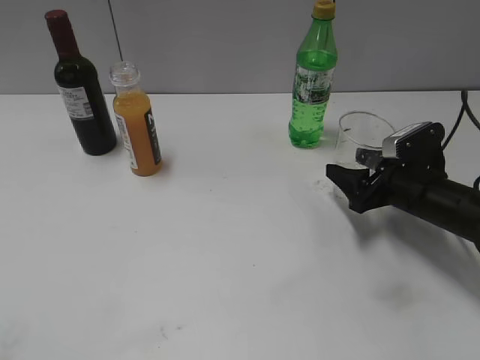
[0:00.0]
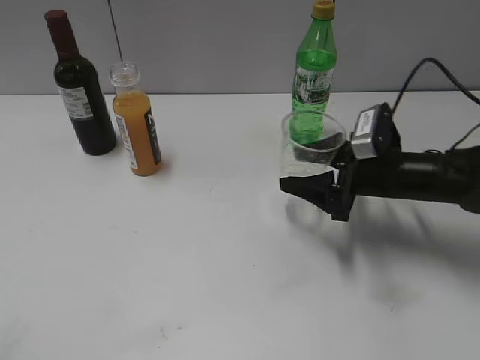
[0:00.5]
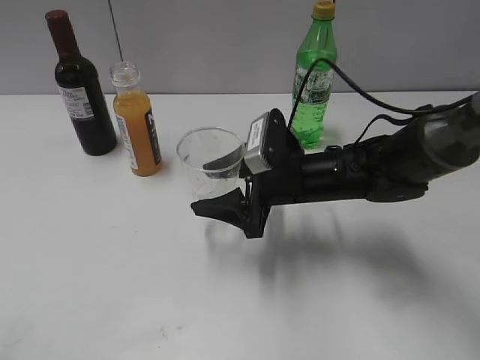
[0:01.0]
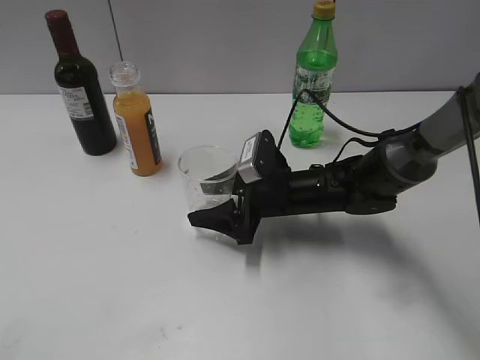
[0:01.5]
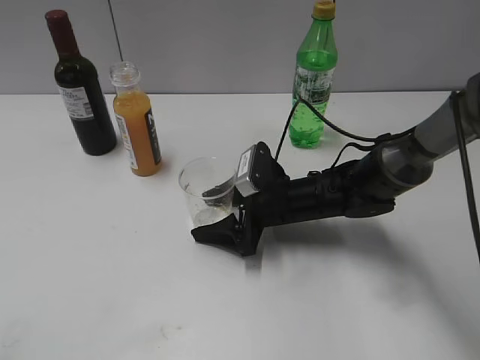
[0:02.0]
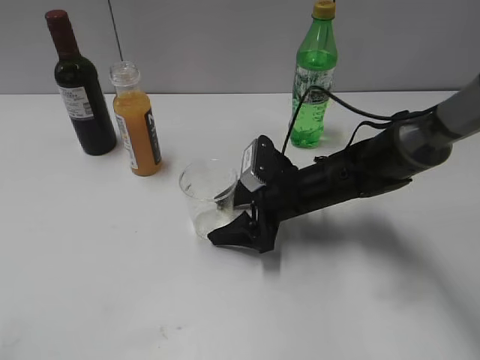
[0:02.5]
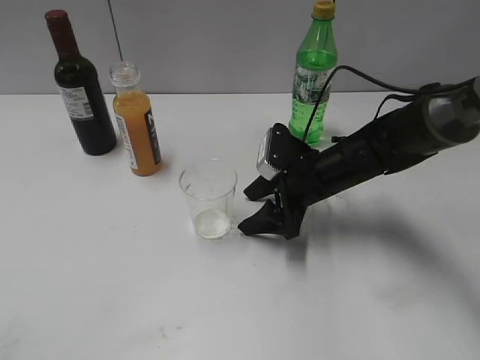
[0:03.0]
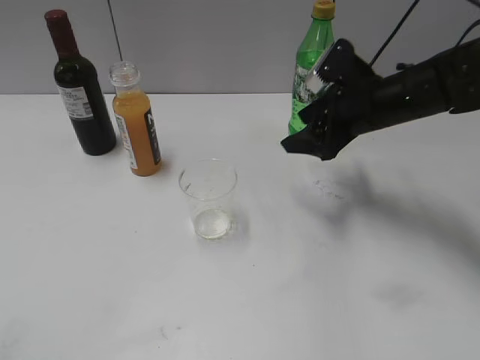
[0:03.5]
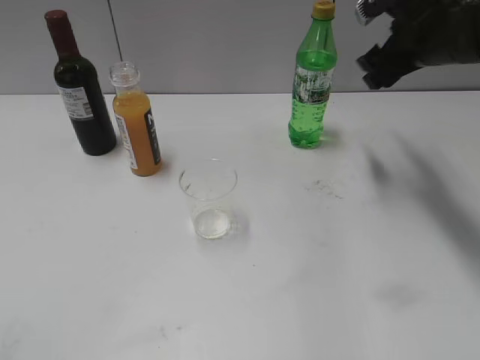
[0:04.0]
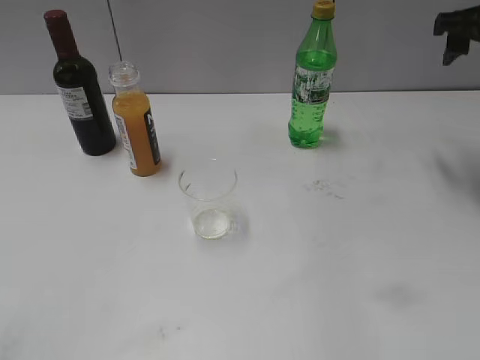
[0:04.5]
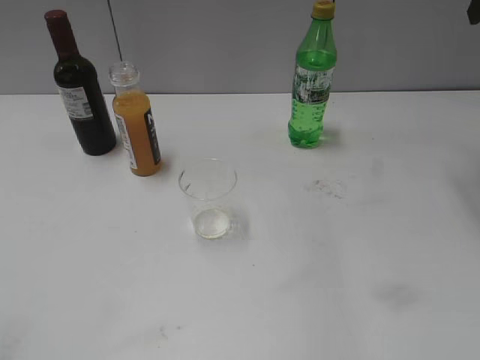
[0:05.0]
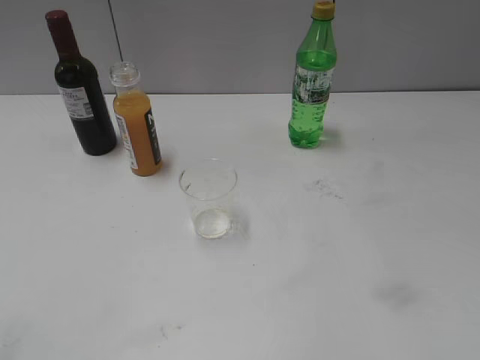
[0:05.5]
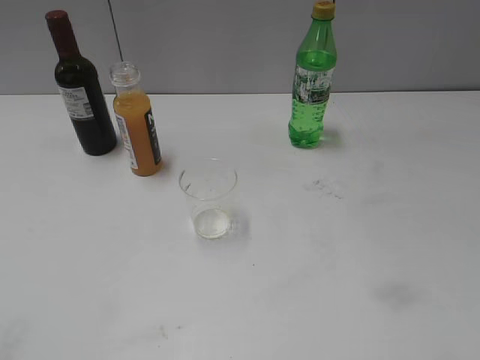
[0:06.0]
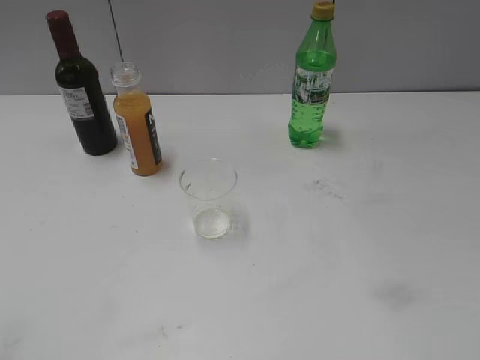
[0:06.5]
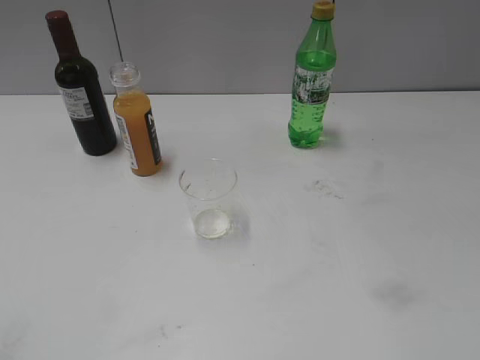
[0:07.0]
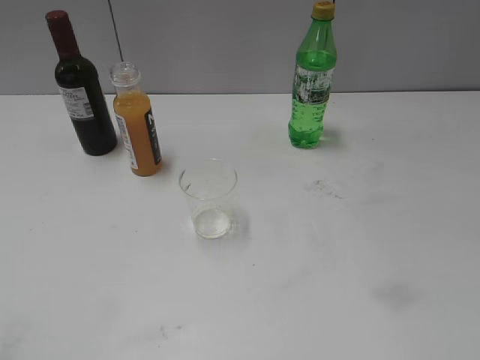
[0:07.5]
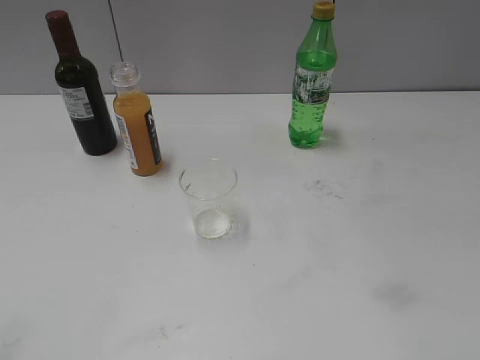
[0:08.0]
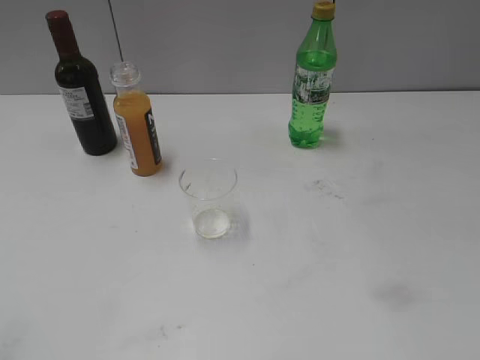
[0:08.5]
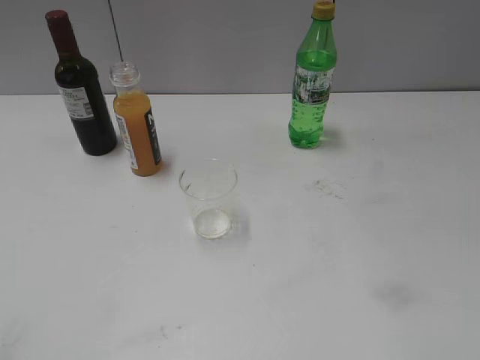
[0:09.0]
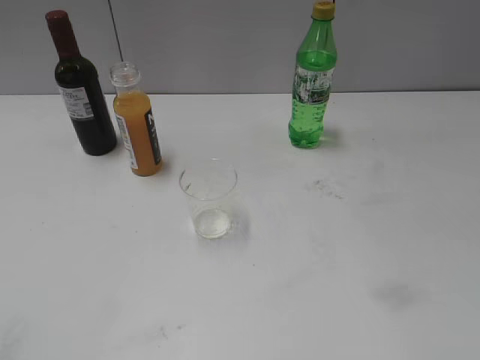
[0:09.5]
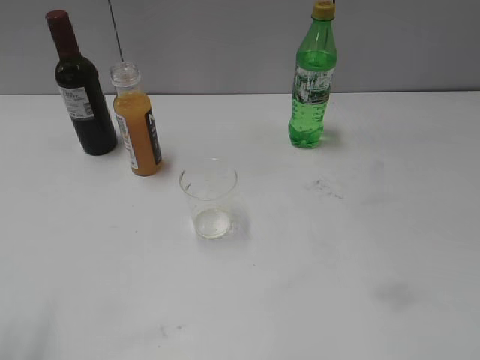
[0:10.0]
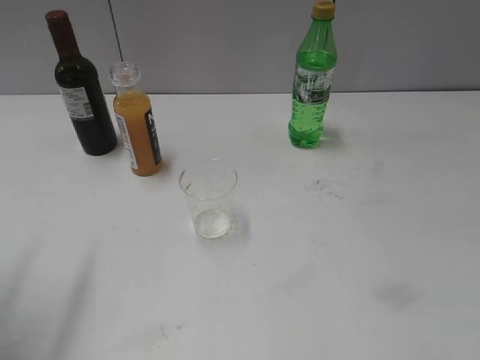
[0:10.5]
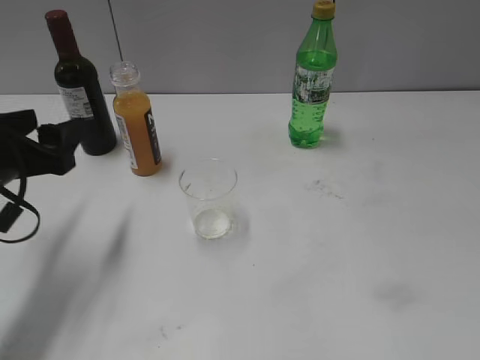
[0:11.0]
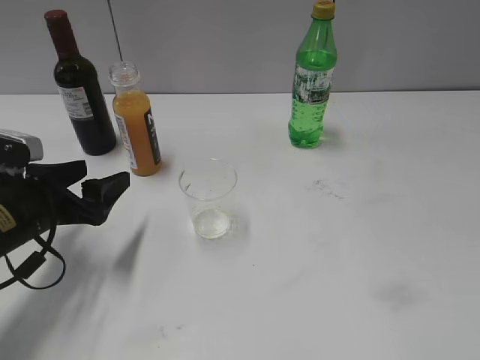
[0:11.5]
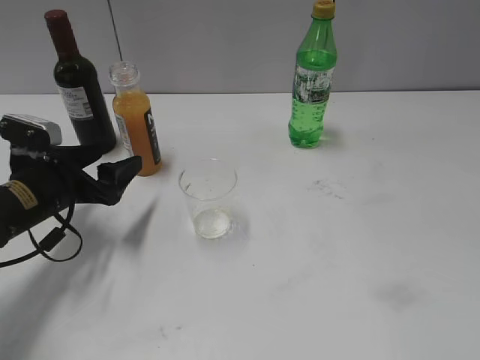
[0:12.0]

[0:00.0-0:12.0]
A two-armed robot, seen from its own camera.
Step, 0:00.0 to 0:02.5: Place the transparent cup on the table with right gripper.
0:00.0 to 0:02.0: The right gripper is displaced to the left by some 15 cm.
0:02.0 to 0:04.0: The right gripper heads upward and to the right, covering roughly 25 cm.
0:04.0 to 0:06.0: The right gripper goes about 30 cm backward.
0:10.0 to 0:12.0: The left gripper is displaced forward and downward by some 30 cm.

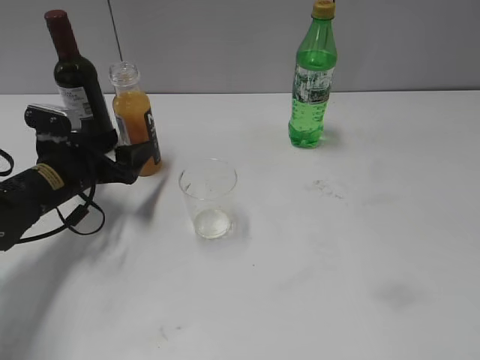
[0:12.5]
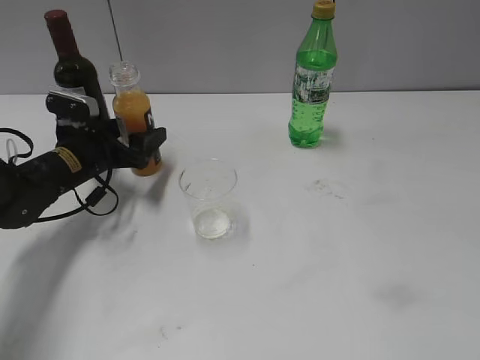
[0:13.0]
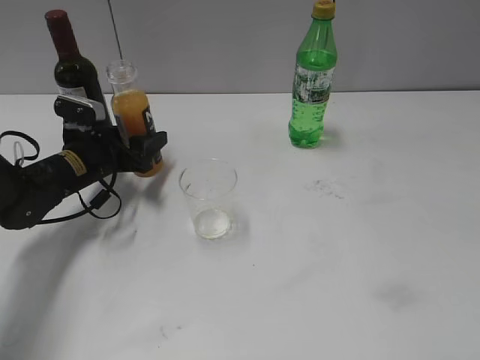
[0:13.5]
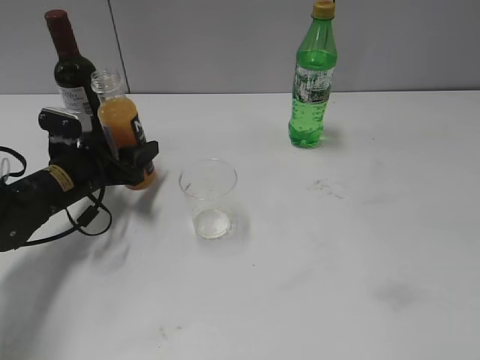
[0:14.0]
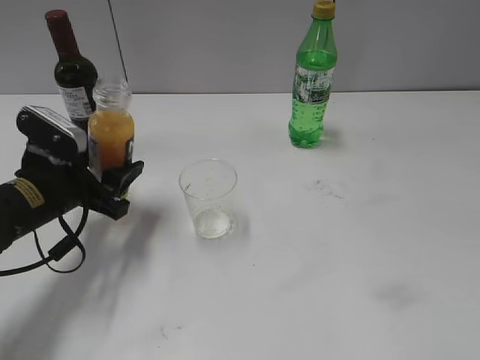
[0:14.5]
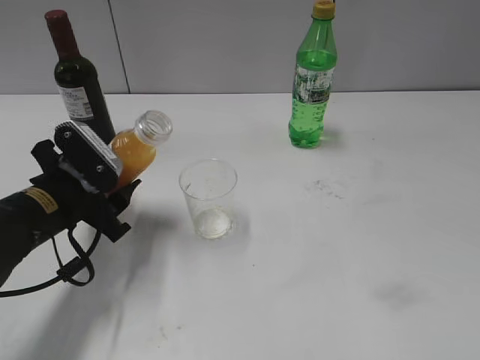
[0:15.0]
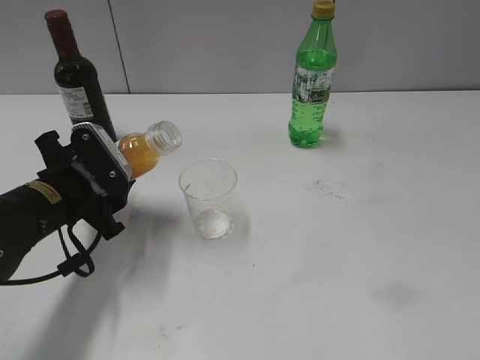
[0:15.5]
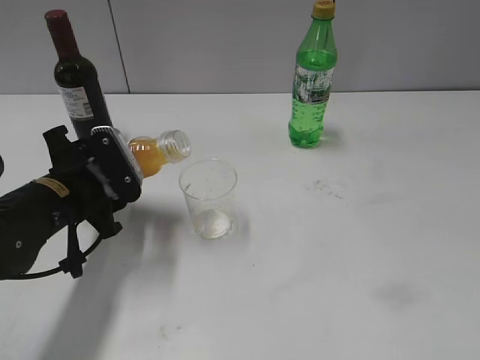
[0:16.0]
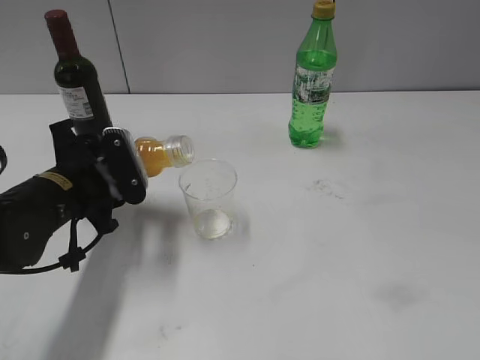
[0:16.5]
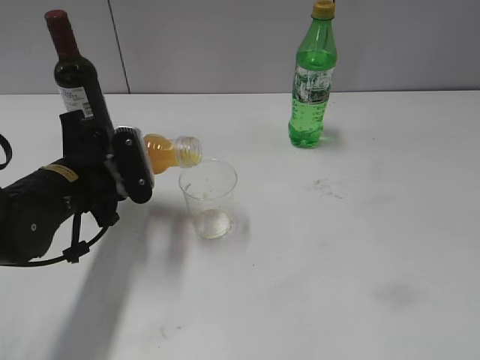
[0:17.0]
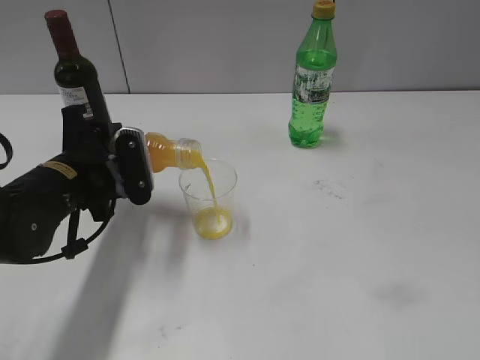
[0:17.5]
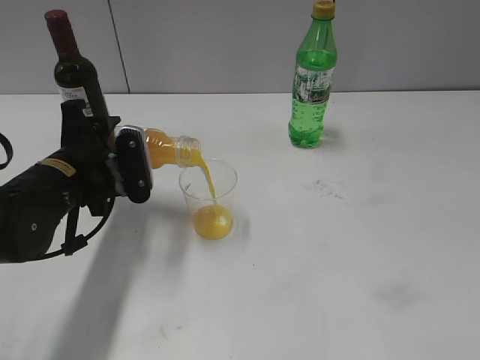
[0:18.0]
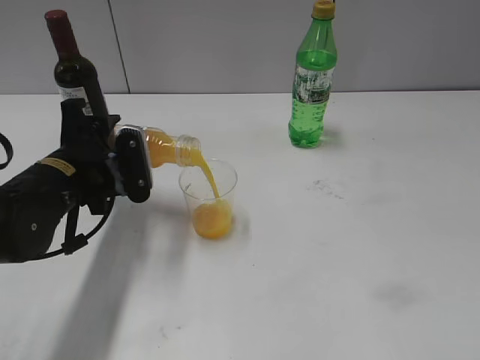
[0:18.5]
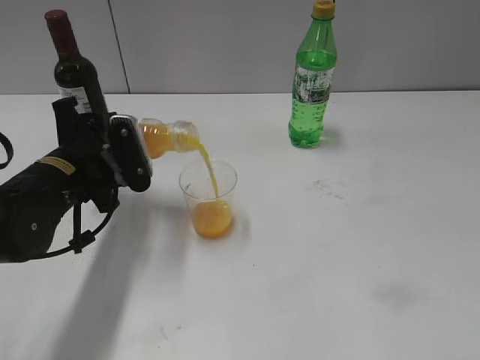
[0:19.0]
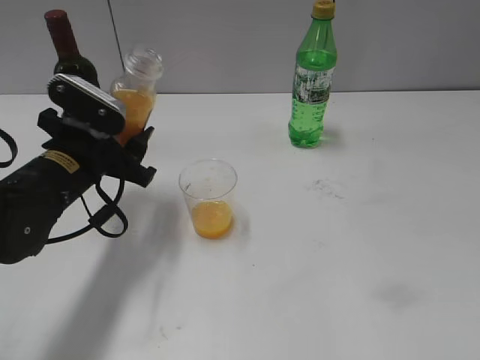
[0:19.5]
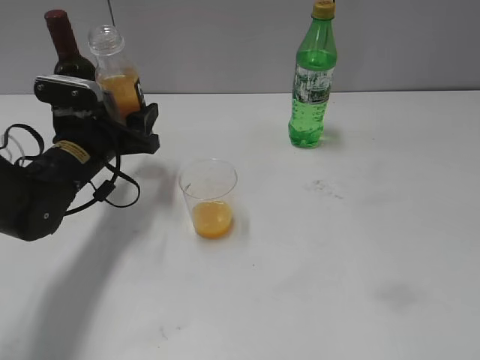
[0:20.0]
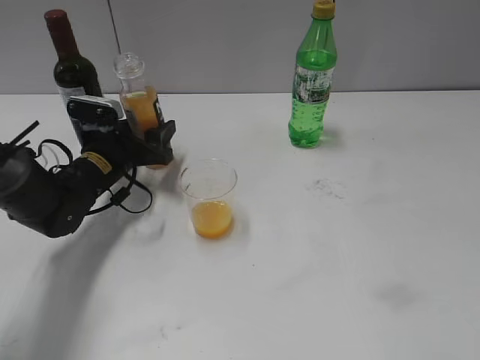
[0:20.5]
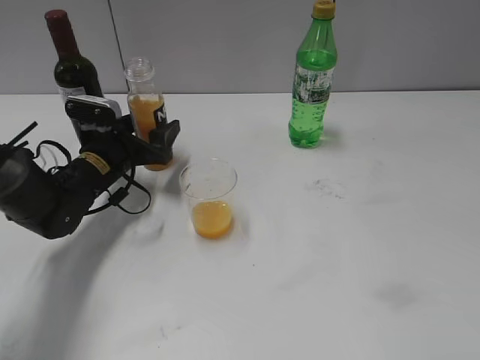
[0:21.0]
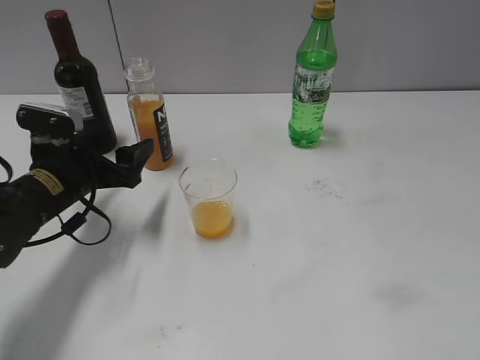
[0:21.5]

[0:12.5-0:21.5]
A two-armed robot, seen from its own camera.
Step, 0:14.0 to 0:19.0: Pour the orange juice from bottle to cup with left gripper.
Step, 0:19.5 to 0:21.0: Place the orange juice bottle on the table with left gripper.
0:12.5 to 0:14.5: The left gripper travels backward by some 5 cm, and closes its fingers.
0:19.5 to 0:21.5: The left gripper reaches some 10 cm forward, then returns, and opens its fingers.

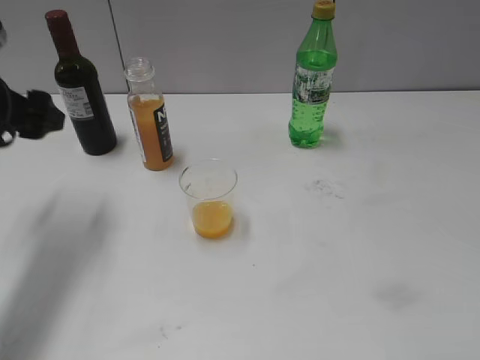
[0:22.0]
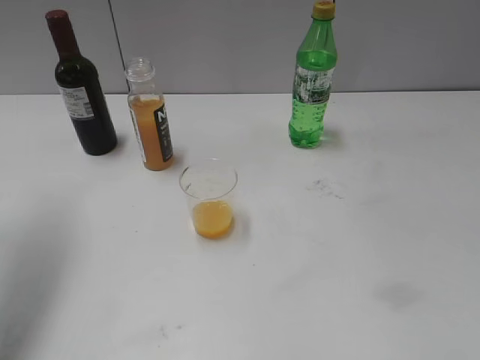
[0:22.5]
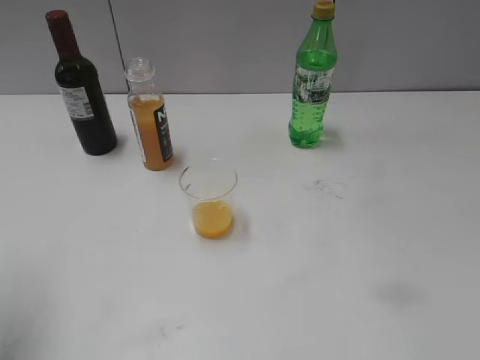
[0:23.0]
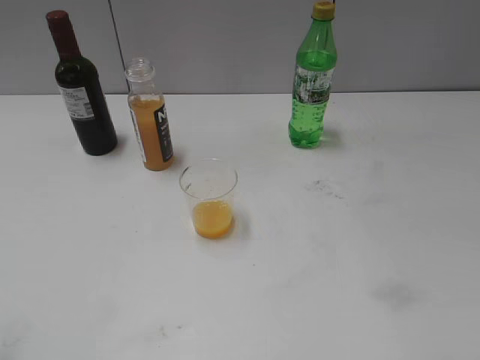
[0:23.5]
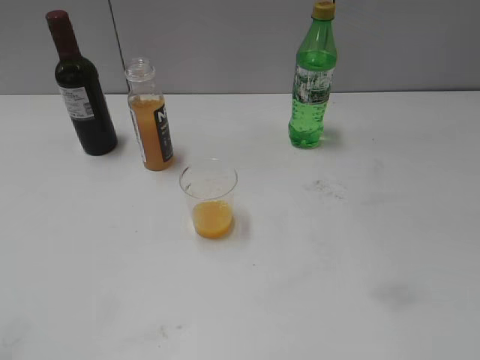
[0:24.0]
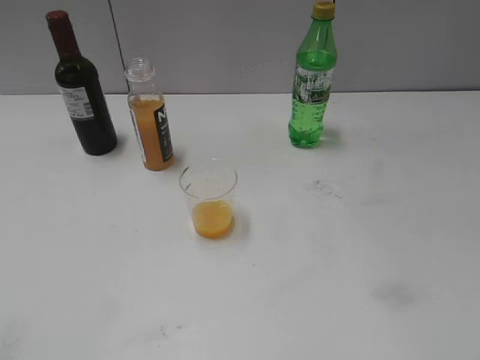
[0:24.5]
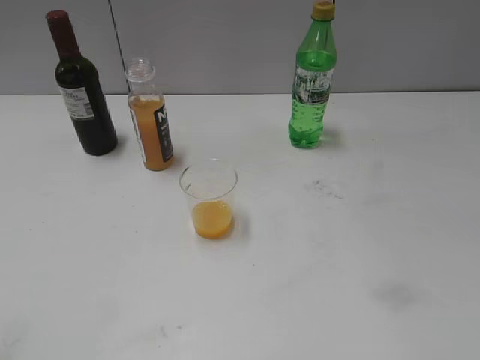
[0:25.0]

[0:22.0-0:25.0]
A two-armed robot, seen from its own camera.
0:22.0 to 0:23.5: The left gripper is displaced backward by approximately 25 cm.
